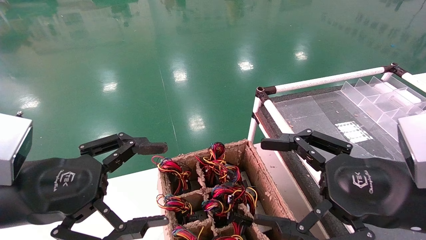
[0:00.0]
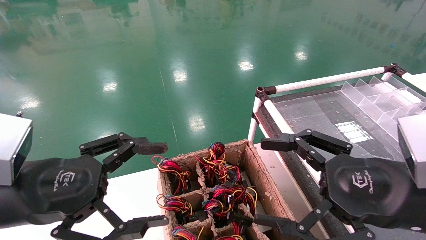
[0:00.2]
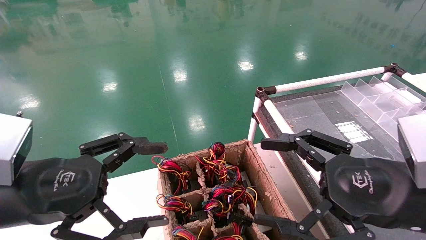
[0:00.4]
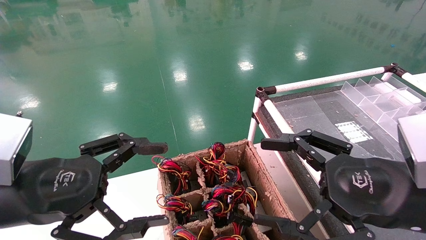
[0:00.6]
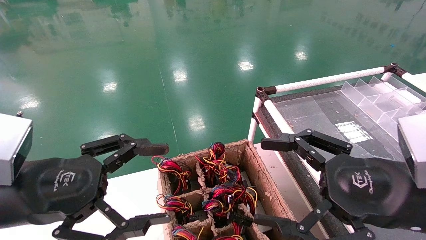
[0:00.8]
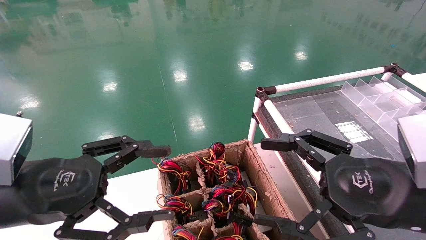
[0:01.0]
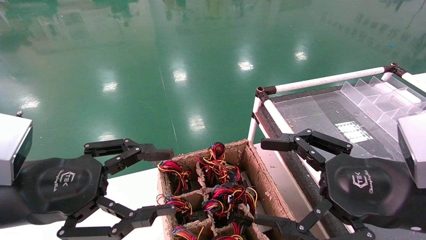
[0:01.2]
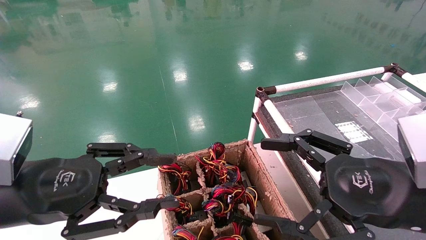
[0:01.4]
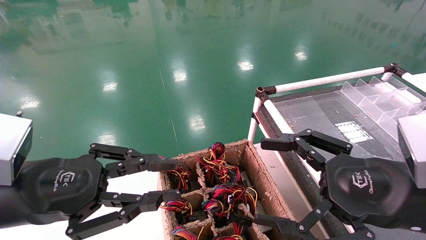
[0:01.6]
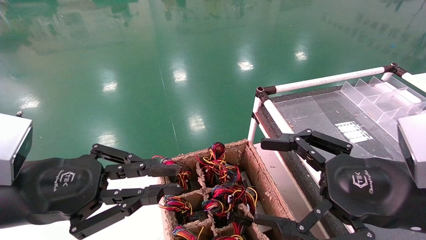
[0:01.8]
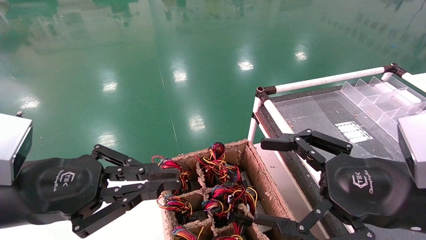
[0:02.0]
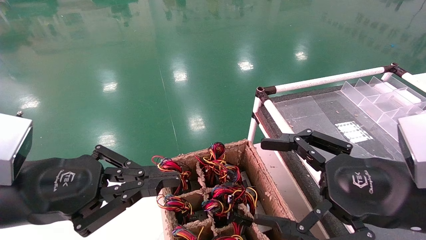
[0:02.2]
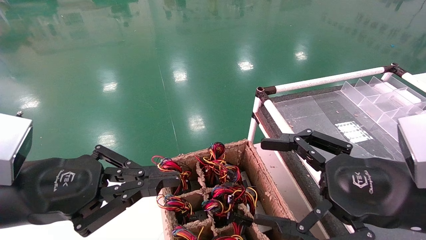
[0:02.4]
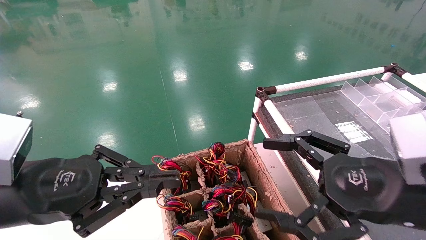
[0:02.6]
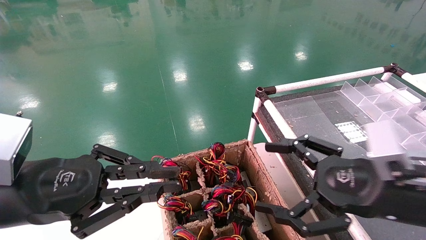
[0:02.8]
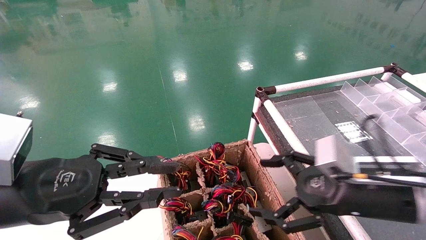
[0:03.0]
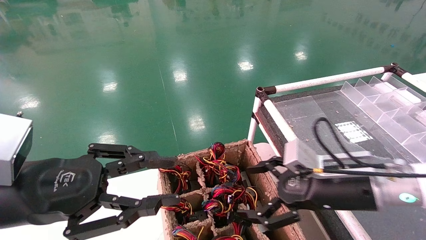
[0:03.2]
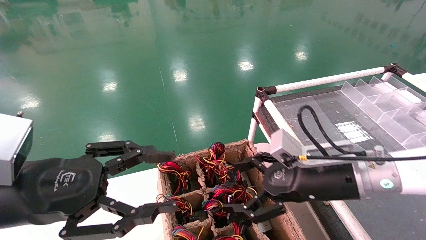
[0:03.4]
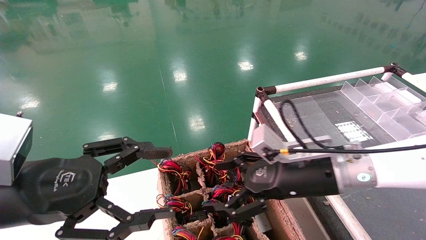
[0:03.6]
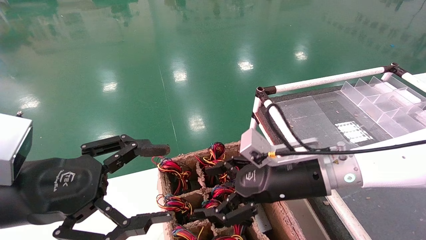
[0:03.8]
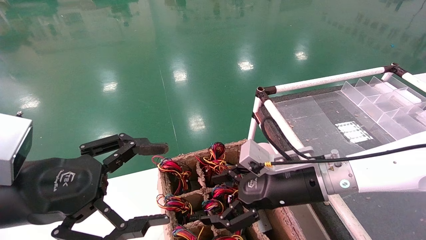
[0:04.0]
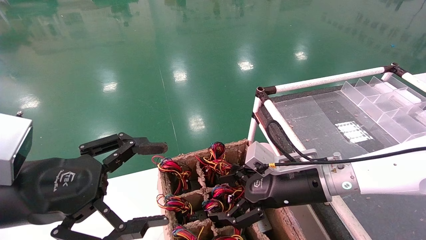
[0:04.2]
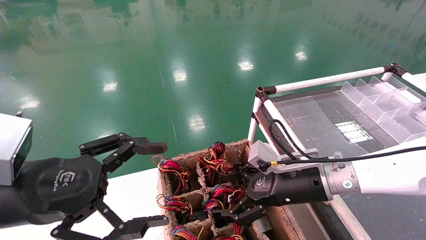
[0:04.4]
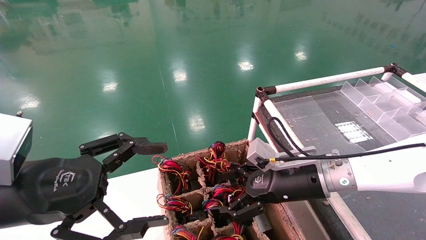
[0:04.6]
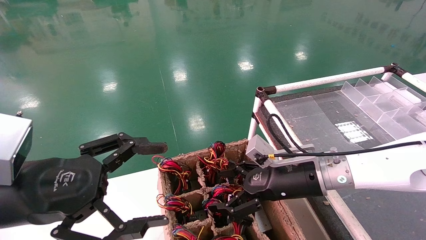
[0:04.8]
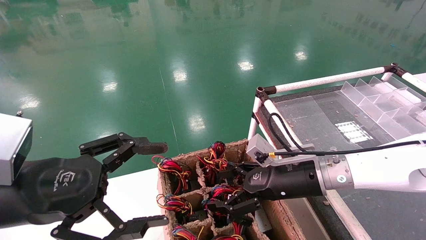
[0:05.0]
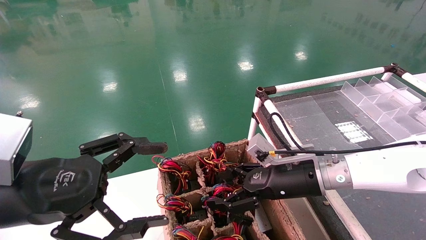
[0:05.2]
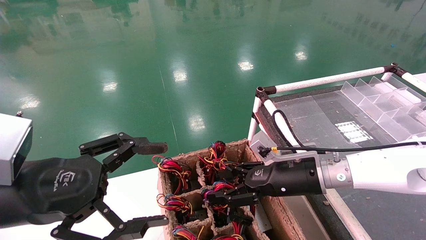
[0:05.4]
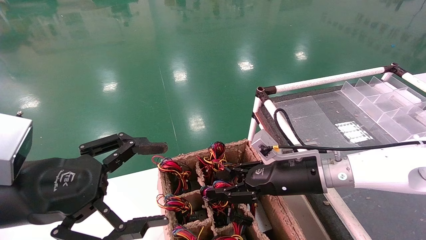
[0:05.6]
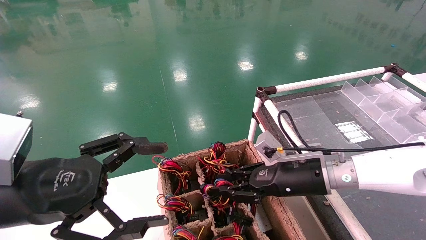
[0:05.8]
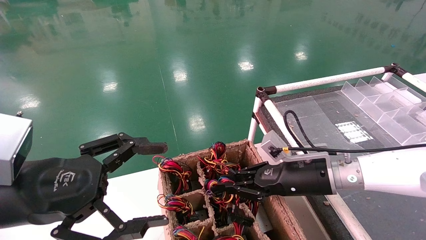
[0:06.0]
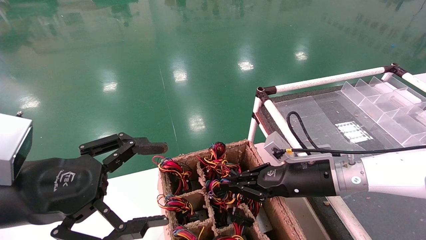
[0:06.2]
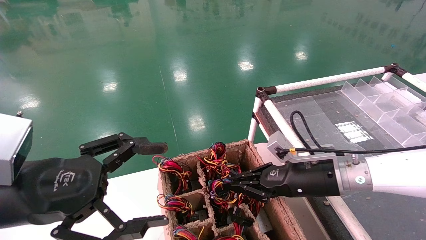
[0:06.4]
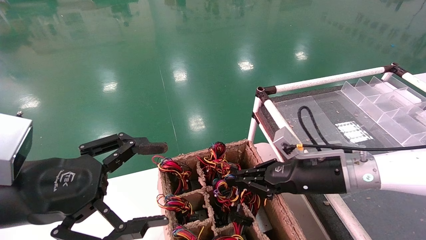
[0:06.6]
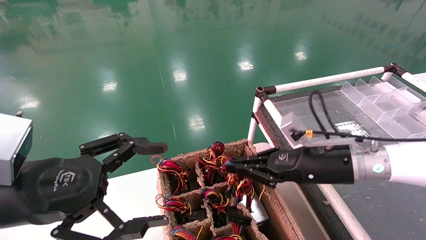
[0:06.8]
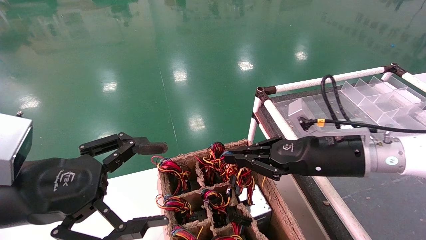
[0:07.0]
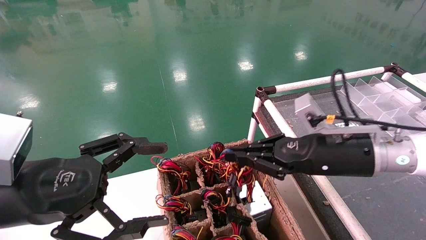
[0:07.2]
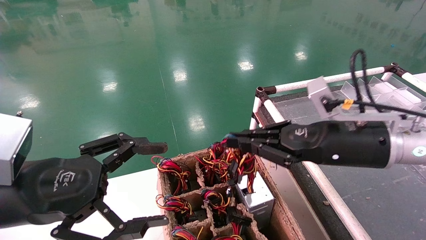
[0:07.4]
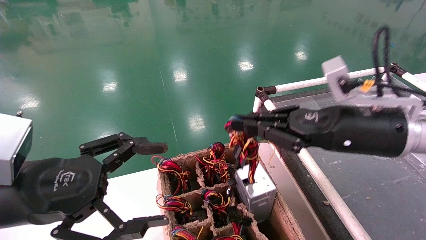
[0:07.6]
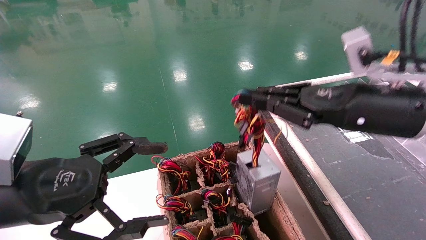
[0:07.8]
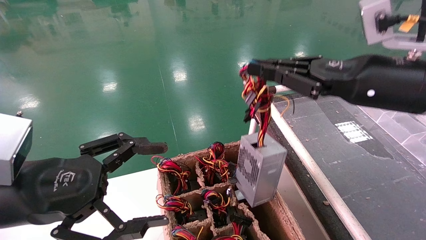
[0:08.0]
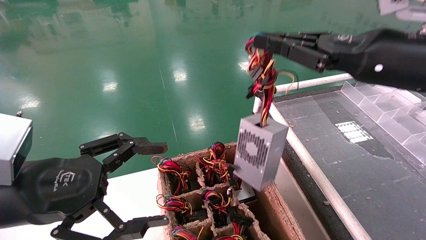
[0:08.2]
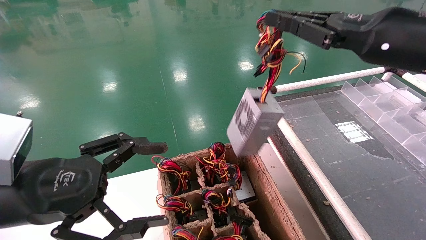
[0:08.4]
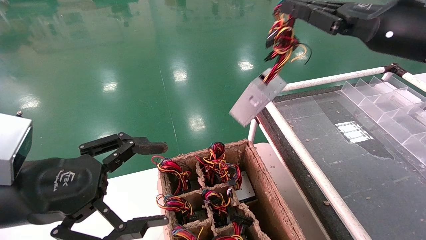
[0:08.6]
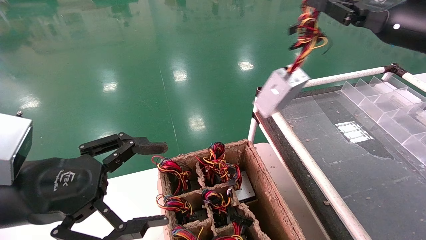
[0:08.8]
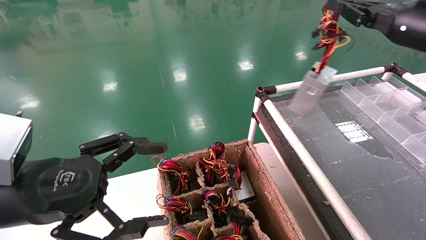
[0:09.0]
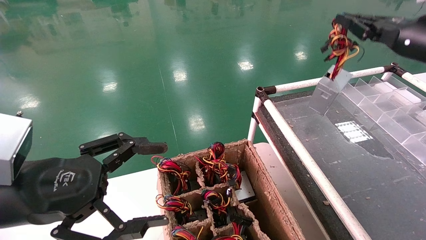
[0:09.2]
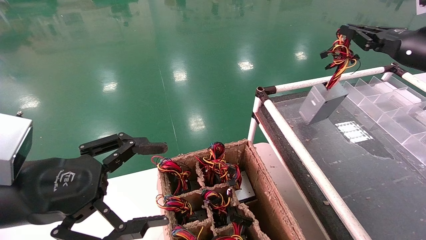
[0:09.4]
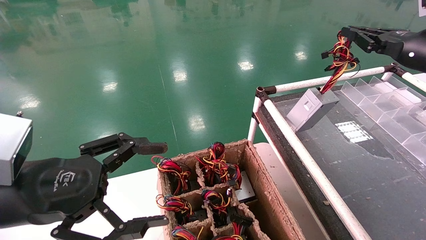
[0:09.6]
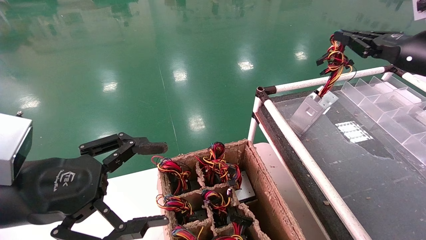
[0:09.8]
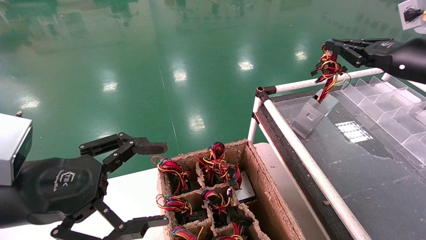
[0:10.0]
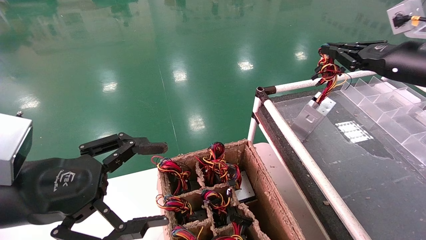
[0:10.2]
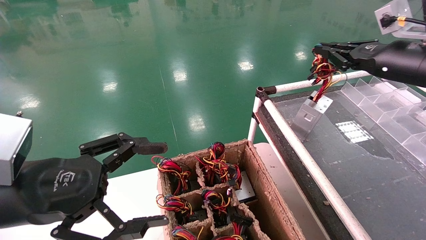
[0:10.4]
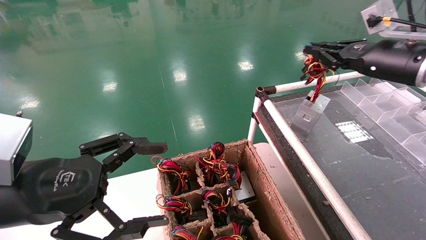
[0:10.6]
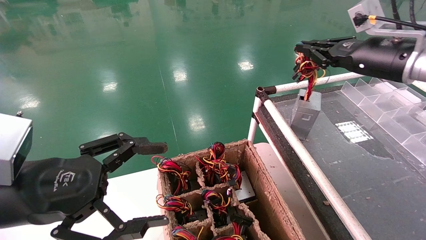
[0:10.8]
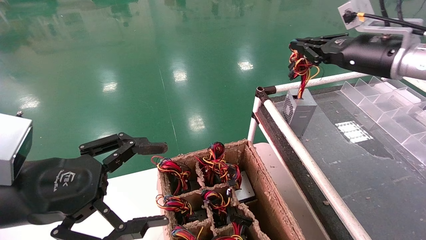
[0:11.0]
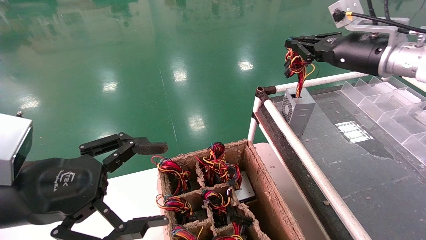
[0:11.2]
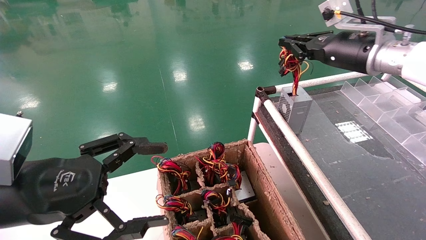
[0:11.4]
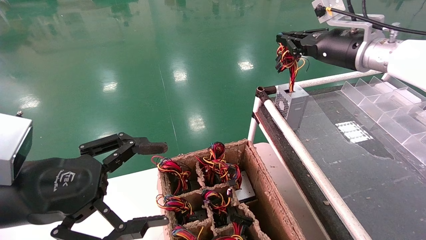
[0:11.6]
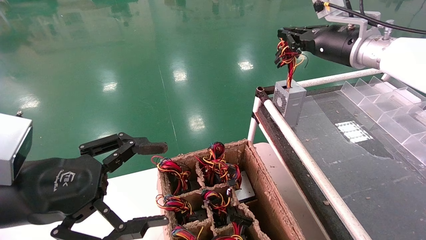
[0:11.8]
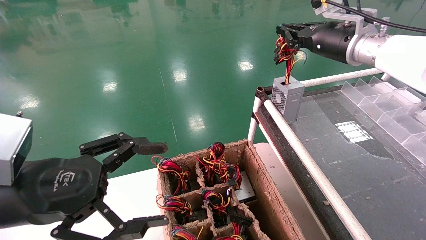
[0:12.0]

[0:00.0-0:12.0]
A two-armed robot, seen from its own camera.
Step, 0:02.2 to 0:06.4: Grab and lift the power supply from the large box.
0:00.0 to 0:01.6: The left gripper closes.
0:01.6 to 0:03.0: The right gripper goes about 5 cm forward.
0:03.0 to 0:04.4: The left gripper opens up. The right gripper shifts about 10 cm forward and to the left.
0:04.4 to 0:06.0: The right gripper closes.
0:06.0 to 0:07.6: The right gripper is displaced upward and backward by some 15 cm.
0:07.6 to 0:09.0: The right gripper travels to the right, upward and forward by approximately 20 cm.
0:09.0 to 0:10.4: There are only small adjustments of the grippers.
0:10.4 to 0:12.0: The right gripper goes roughly 10 cm to the left and forward.

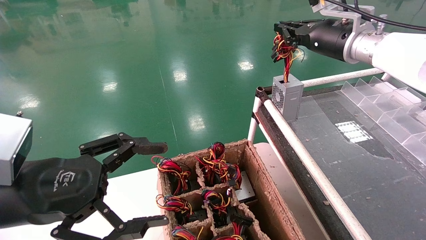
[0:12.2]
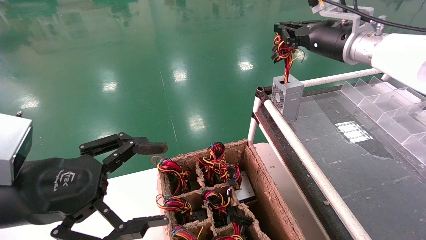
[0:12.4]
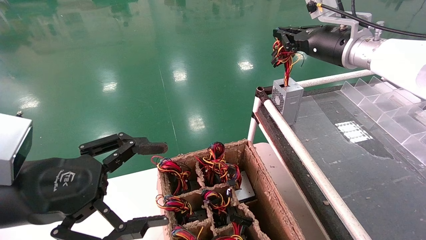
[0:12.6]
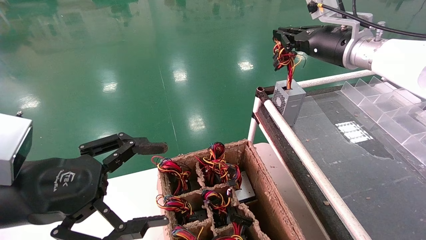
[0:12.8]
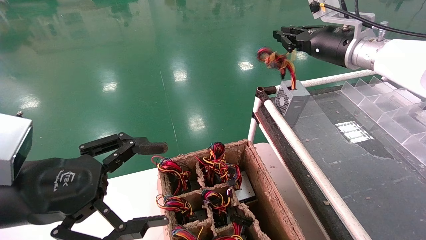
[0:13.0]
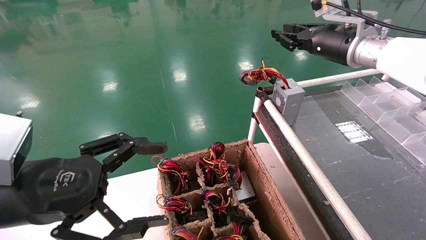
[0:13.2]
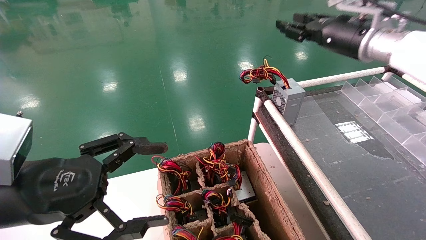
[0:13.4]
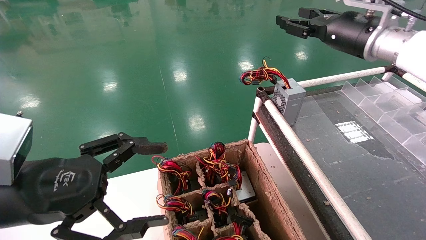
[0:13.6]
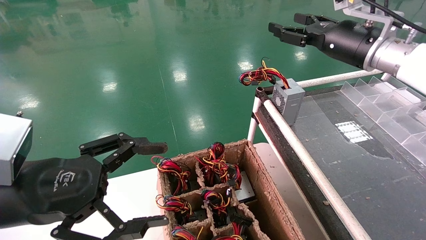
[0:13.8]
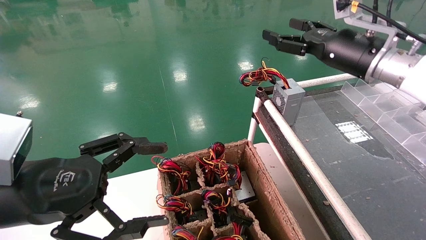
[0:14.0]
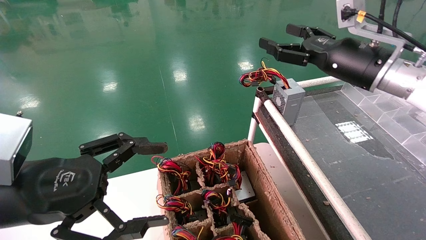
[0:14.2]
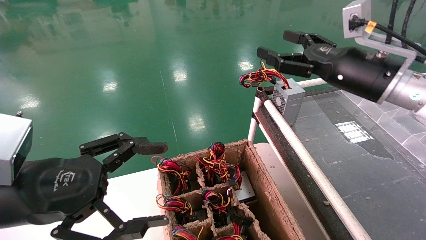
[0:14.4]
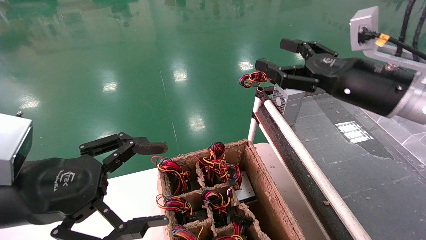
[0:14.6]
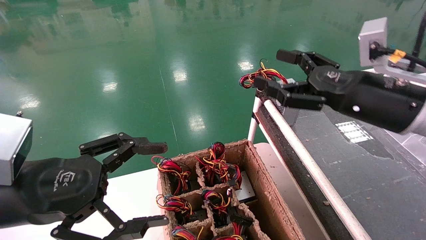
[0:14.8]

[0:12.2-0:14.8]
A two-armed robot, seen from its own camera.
0:12.2 to 0:13.4: There are only small adjustments of the grippers.
0:13.4 to 0:14.8: The right gripper is displaced backward and downward by roughly 15 cm, and opens.

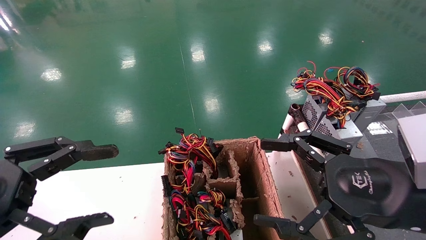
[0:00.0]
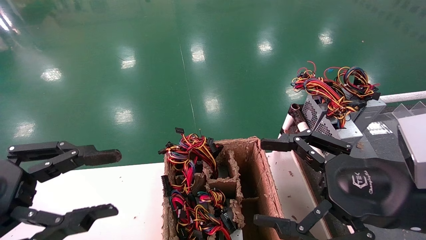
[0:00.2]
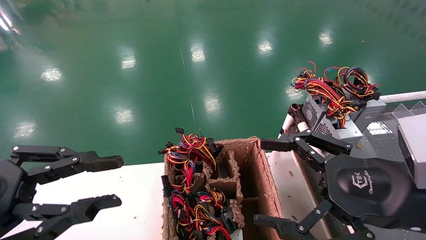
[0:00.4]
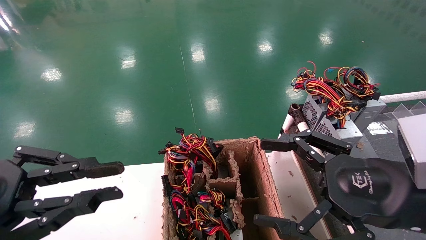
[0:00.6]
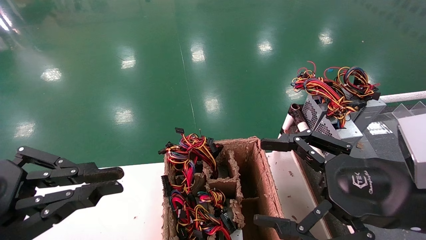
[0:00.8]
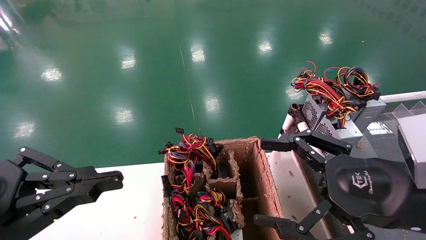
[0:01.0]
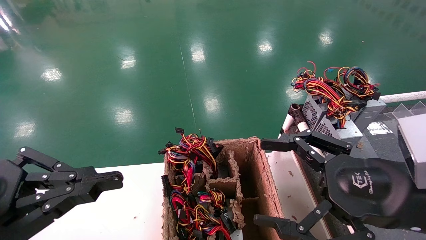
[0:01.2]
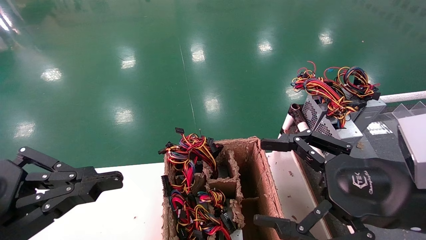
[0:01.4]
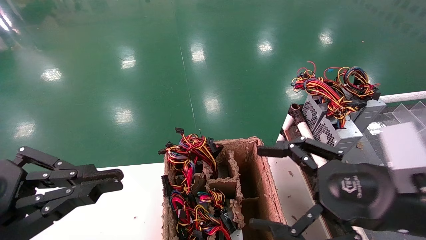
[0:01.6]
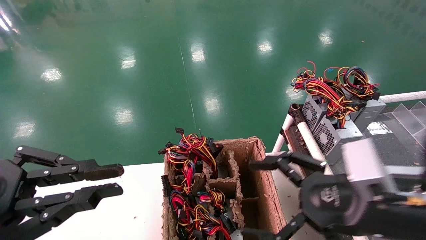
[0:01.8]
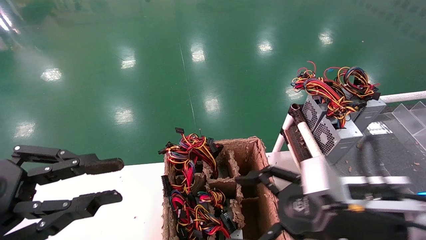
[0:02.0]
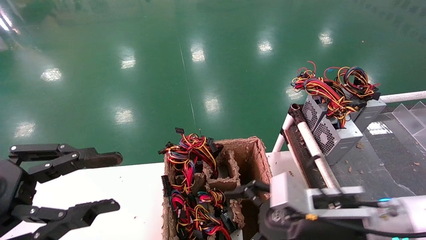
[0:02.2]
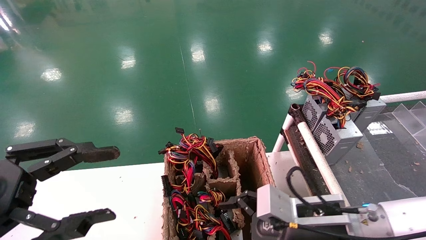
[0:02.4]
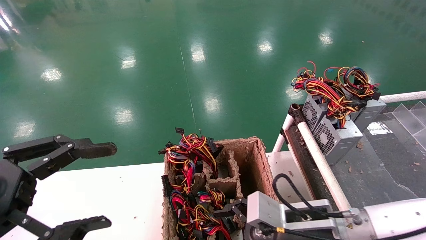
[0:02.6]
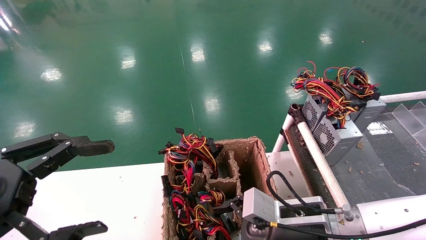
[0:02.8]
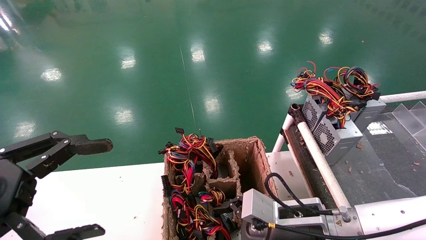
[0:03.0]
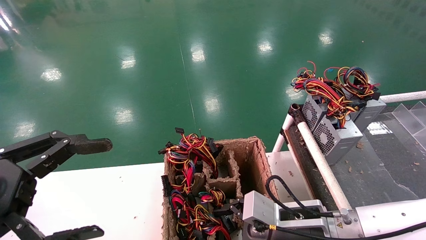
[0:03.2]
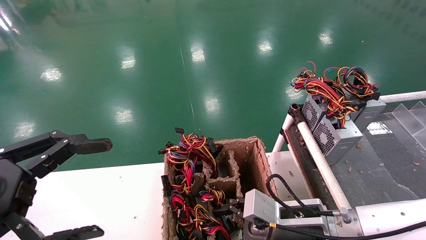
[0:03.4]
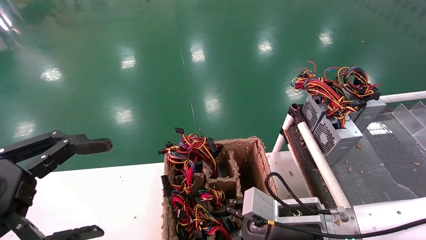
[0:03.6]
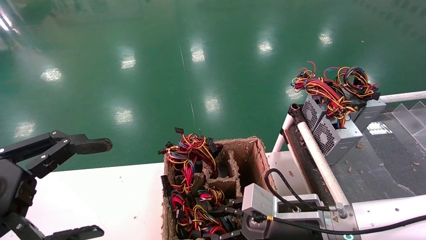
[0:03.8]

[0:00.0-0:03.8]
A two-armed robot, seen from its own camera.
0:00.0 to 0:01.2: The left gripper closes.
0:01.2 to 0:02.6: The right gripper goes approximately 15 cm downward, to the left and forward, while the left gripper opens.
0:02.6 to 0:03.8: The right gripper closes.
